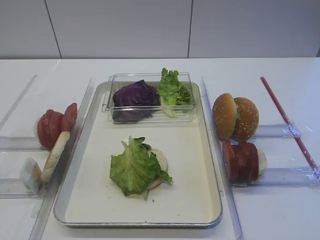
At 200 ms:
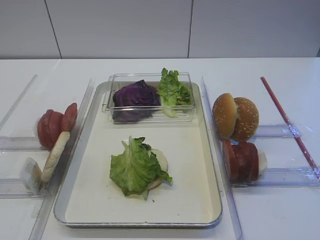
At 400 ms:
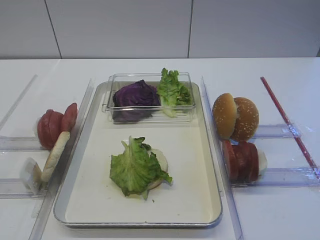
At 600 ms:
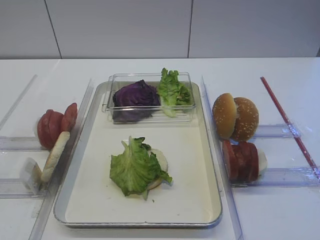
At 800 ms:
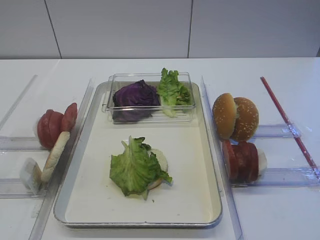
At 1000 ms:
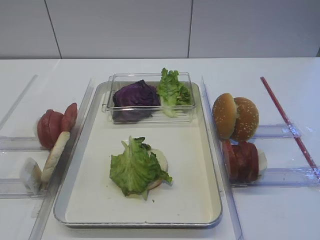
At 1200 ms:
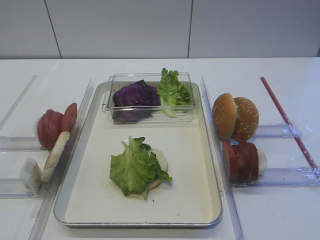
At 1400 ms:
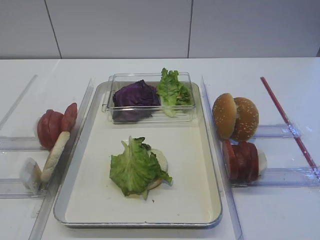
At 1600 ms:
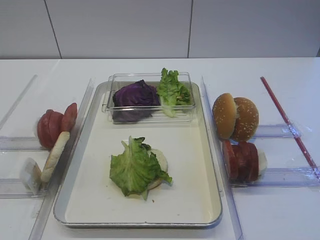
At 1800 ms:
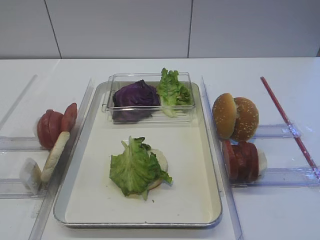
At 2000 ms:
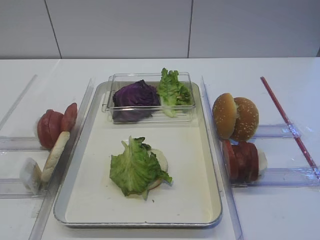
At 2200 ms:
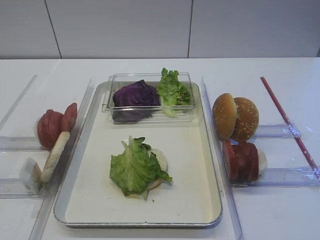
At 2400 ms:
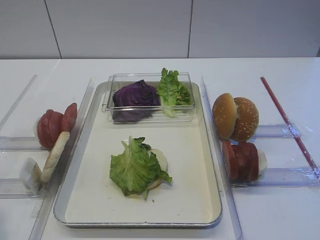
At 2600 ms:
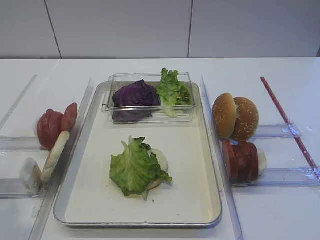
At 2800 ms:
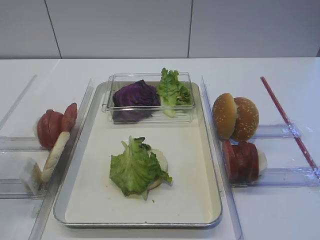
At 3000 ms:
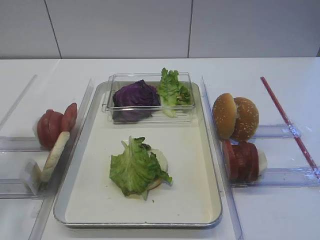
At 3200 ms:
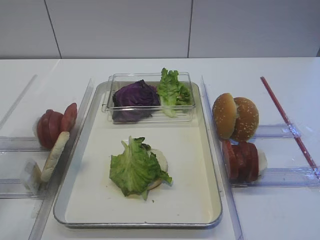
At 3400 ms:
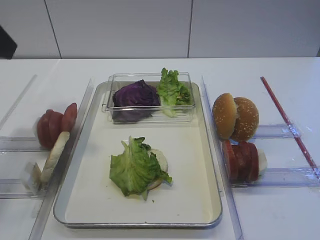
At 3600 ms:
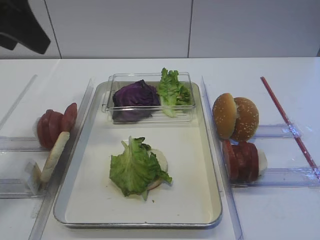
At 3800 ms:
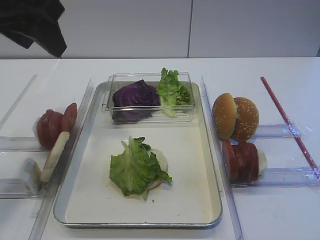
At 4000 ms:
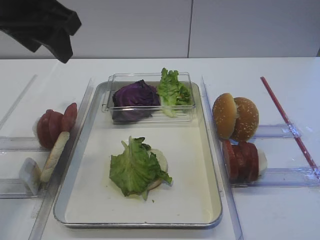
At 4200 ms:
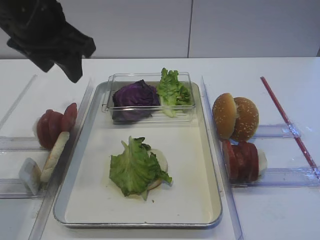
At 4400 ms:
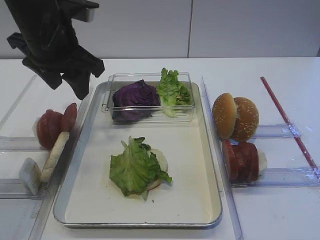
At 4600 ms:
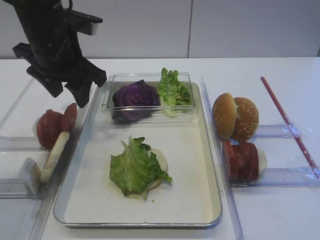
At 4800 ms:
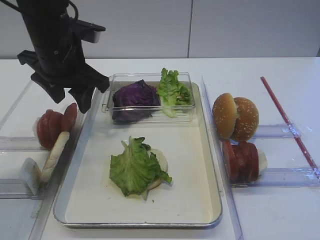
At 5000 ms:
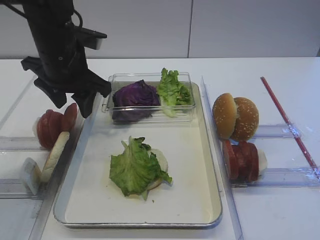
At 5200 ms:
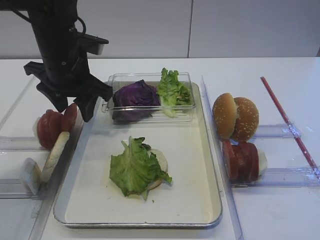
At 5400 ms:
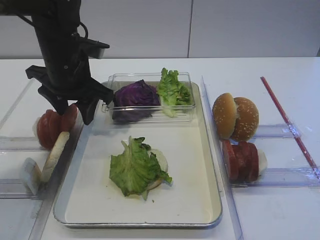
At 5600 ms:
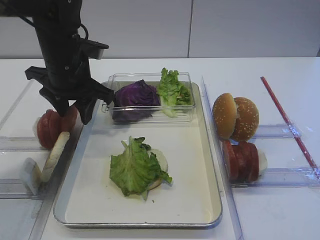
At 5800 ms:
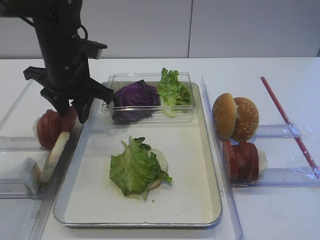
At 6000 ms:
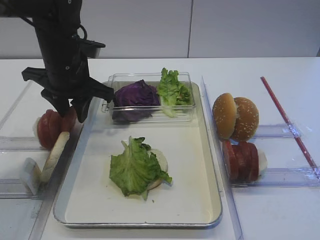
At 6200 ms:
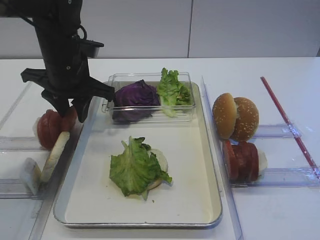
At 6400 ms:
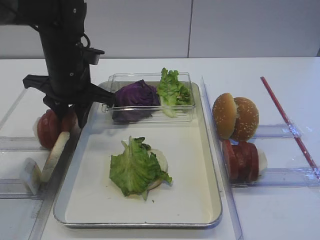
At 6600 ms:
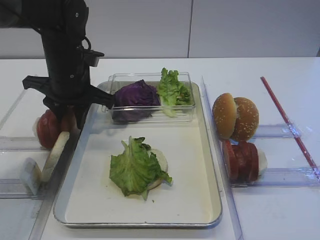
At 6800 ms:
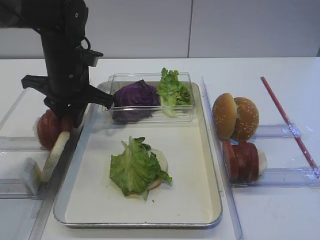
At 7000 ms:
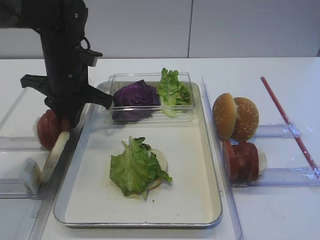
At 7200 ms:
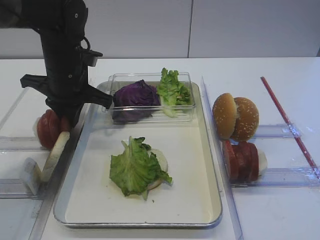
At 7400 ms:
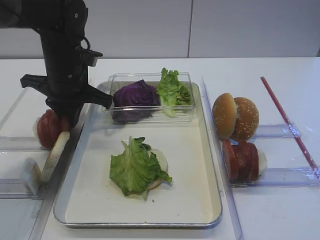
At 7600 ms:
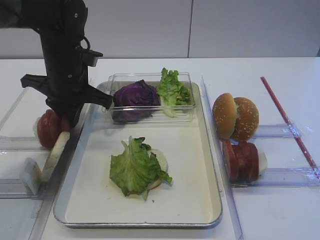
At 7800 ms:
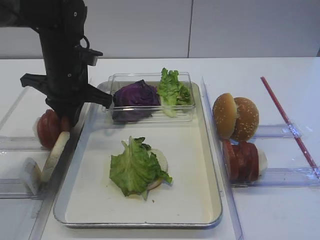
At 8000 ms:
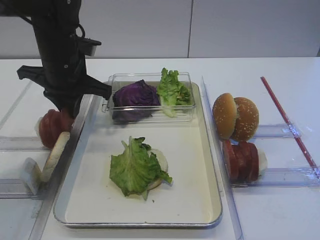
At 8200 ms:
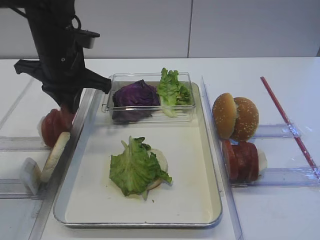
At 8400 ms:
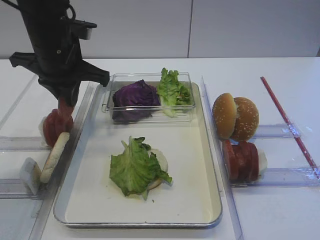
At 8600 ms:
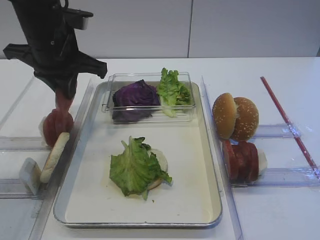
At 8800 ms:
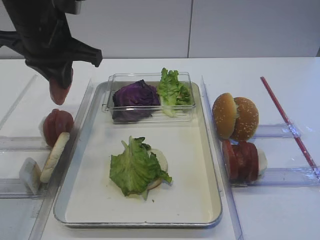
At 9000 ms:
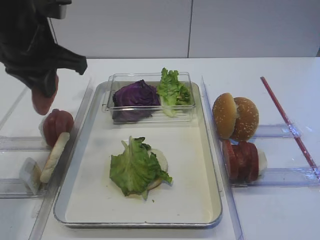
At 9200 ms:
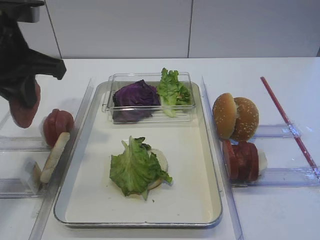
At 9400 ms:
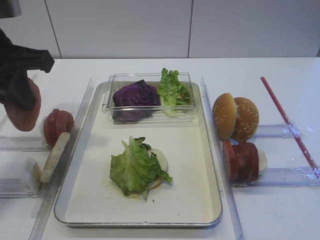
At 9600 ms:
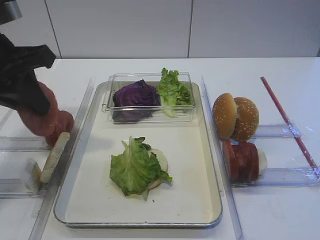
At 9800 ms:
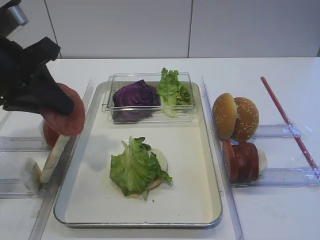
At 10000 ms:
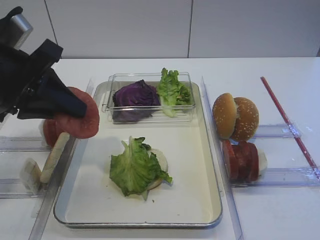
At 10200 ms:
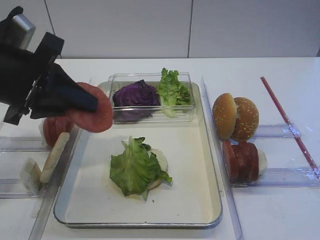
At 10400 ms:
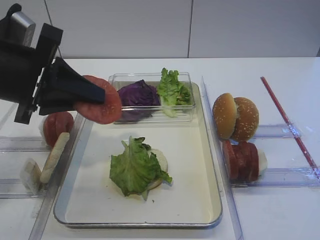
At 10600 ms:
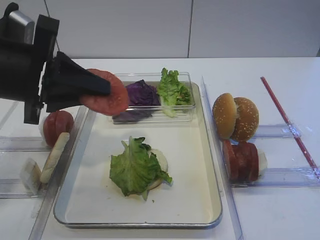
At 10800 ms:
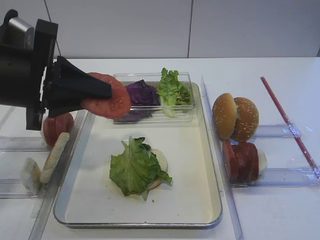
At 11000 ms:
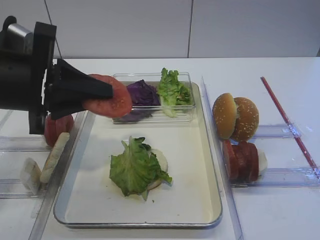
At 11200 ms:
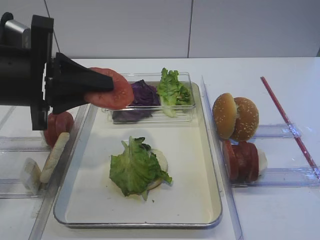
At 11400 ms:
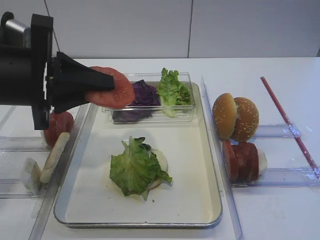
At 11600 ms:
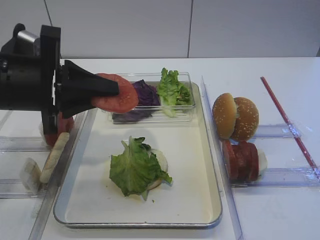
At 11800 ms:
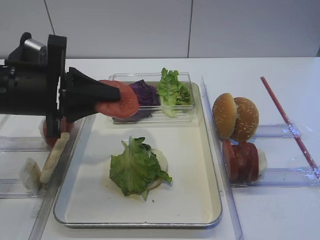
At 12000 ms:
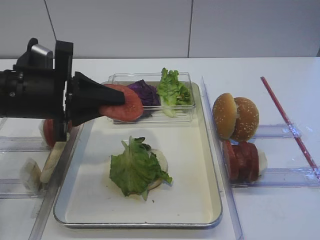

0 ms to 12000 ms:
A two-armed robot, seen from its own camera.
Step, 0 ms to 8400 ms: Pick up the tomato slice with the left gripper.
1600 ms to 3000 ms: The left gripper moves forward and upward, about 15 cm.
3000 ms to 4400 ms: The left gripper shifts some 25 cm forward and to the right.
4400 ms to 6000 ms: The left gripper shifts approximately 5 cm downward, and closes its fingers.
6000 ms to 7600 ms: The left gripper closes.
7600 ms to 9000 ms: The left gripper travels upward and backward by about 10 cm.
9000 ms to 10400 ms: The left gripper goes approximately 10 cm backward.
10400 ms to 12000 ms: The left gripper shifts by approximately 5 cm.

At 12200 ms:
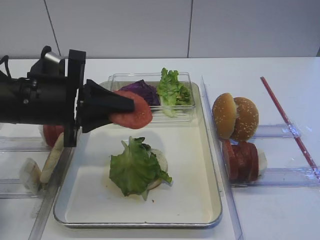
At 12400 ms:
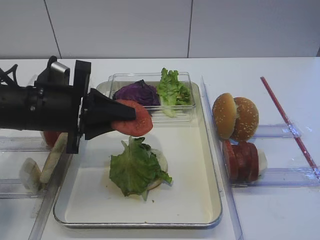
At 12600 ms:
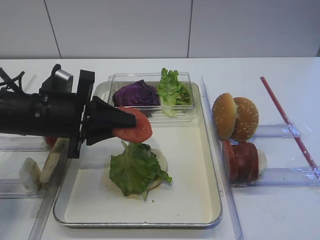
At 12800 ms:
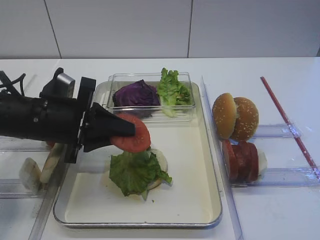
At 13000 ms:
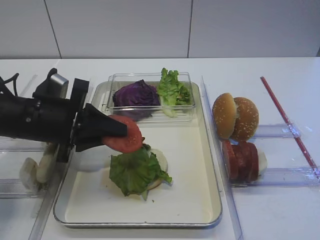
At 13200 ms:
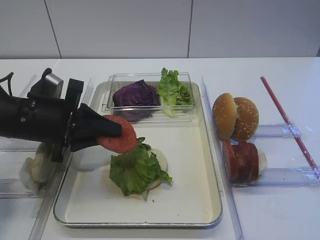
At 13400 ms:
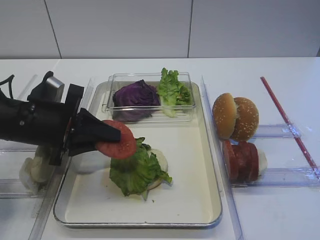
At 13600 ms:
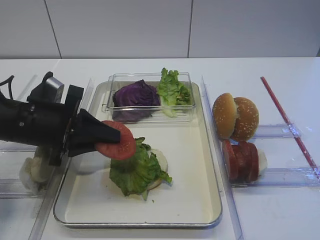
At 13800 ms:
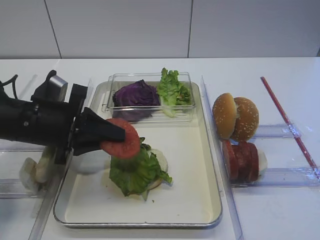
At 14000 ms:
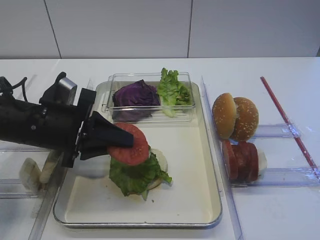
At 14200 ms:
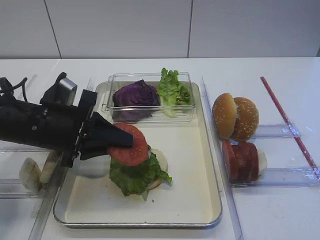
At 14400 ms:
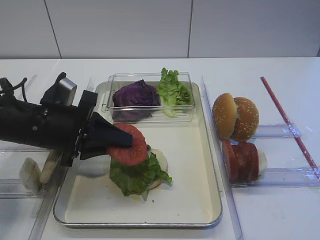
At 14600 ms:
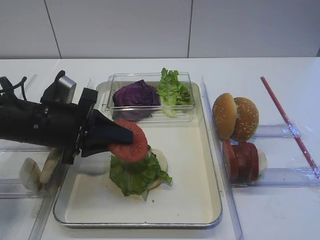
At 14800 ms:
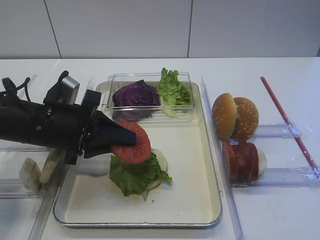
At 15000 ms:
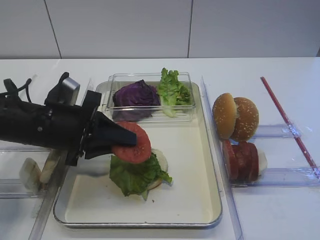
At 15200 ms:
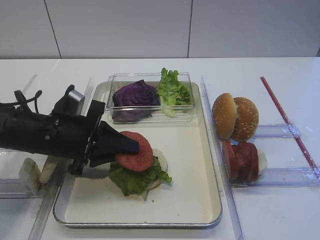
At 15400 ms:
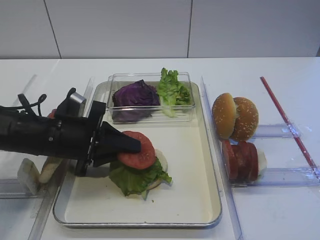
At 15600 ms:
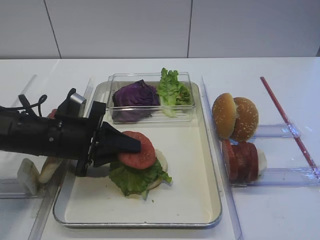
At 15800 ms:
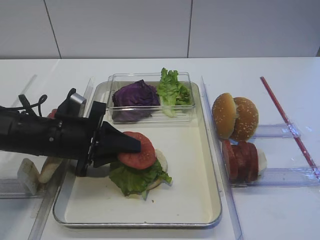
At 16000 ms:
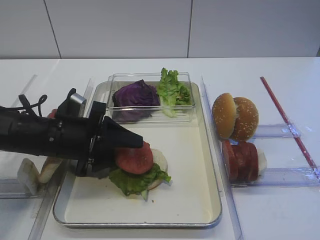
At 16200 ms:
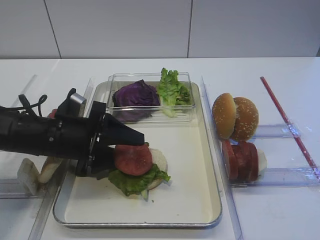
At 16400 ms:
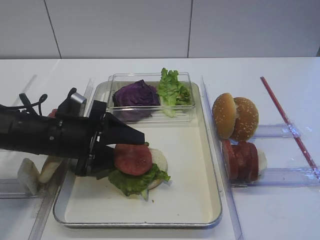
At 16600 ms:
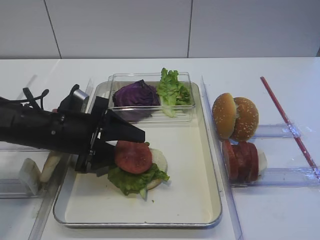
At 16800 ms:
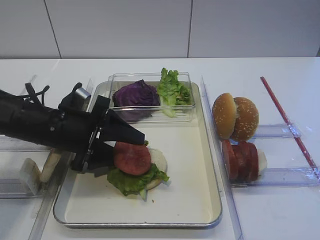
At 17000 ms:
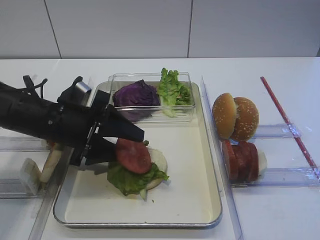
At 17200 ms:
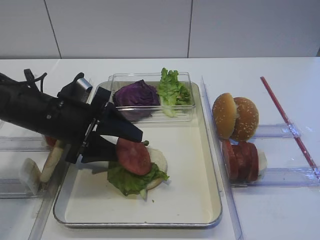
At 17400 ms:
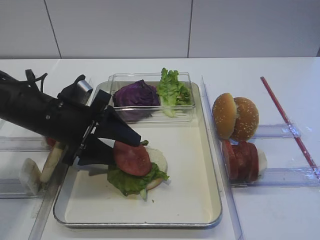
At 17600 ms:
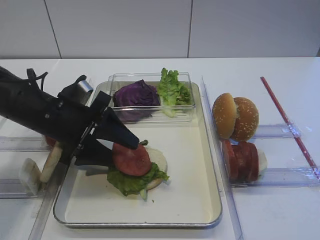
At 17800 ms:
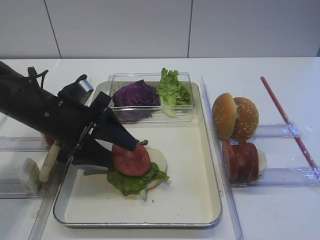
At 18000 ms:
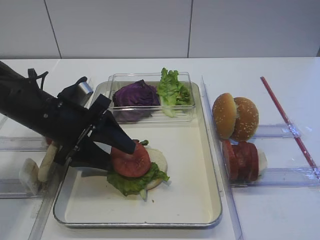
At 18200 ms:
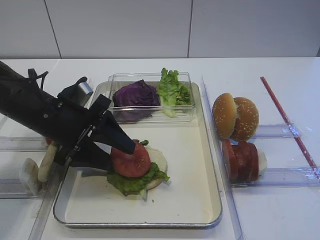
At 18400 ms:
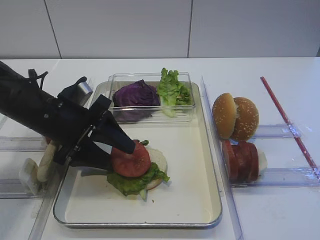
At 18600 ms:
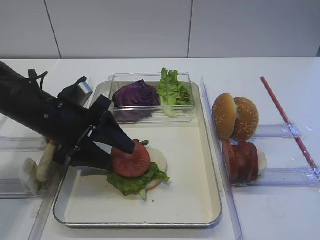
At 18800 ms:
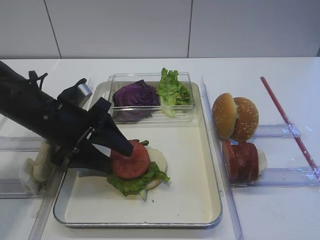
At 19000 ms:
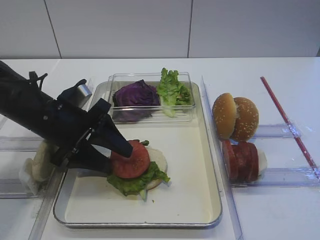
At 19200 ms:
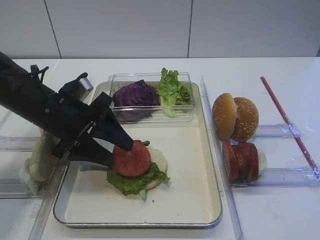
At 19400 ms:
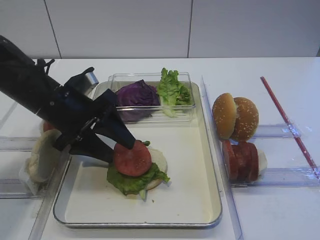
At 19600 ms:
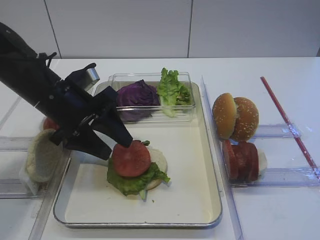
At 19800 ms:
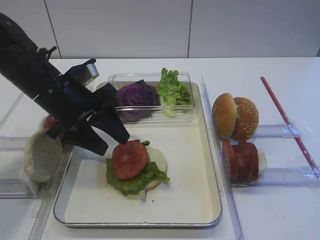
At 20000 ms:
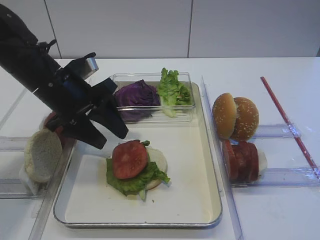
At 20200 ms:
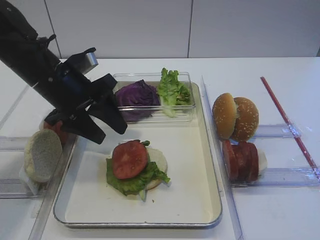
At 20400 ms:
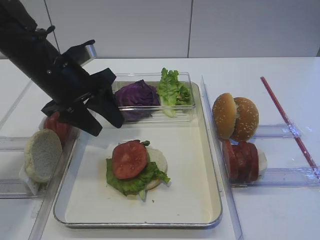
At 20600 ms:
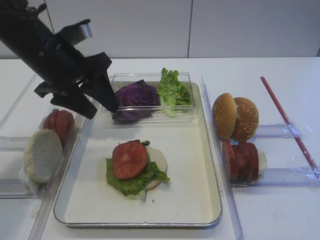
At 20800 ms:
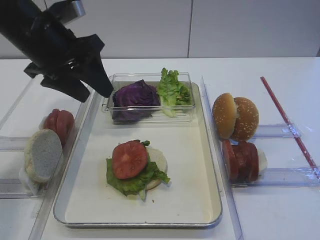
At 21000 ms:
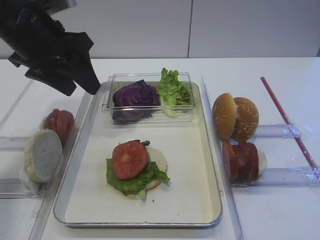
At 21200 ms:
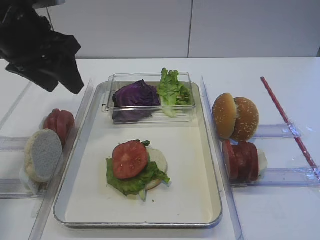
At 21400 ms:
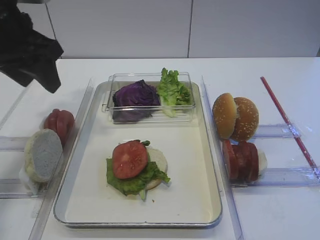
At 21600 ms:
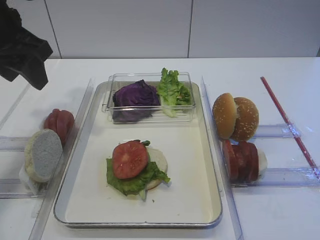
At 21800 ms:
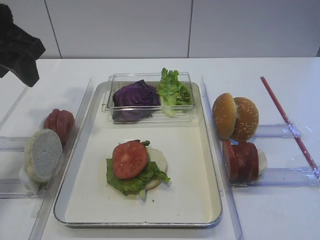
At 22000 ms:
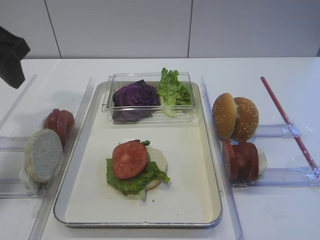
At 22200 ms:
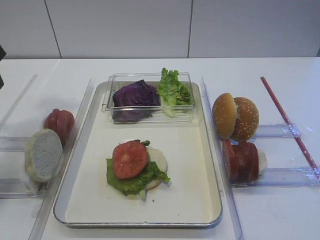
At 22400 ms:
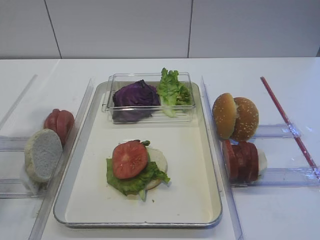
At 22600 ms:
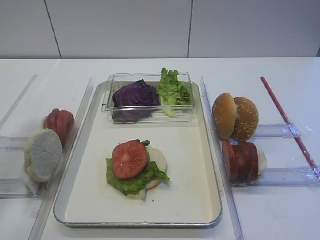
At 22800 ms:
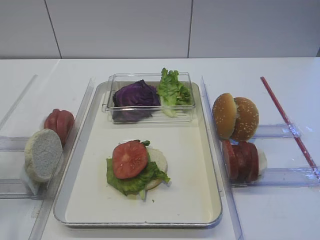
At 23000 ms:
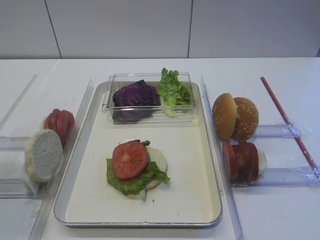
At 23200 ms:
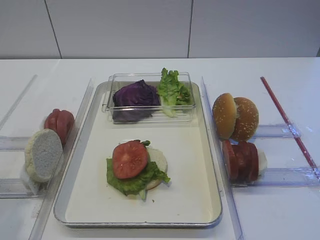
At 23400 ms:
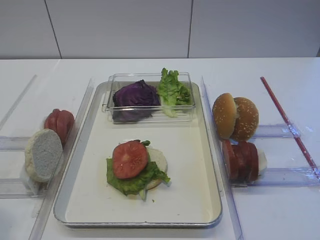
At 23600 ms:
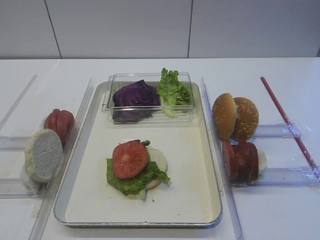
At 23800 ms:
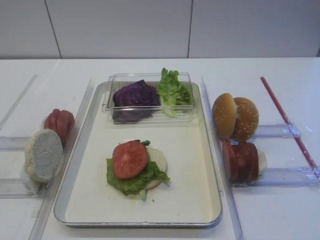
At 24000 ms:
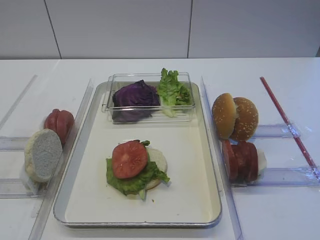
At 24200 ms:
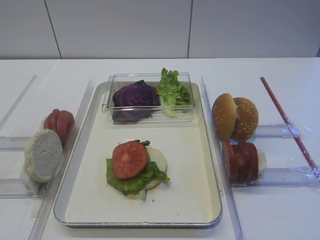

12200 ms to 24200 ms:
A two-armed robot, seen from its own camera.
Step, 12200 ms to 20000 ms: Place the tomato slice on the lettuce leaf with the left gripper.
12200 ms to 13800 ms: The grippers make only small movements.
13800 ms to 15200 ms: The grippers move only a little.
15200 ms to 16600 ms: The left gripper opens.
16600 ms to 18200 ms: There are only small adjustments of the grippers.
18200 ms to 19800 ms: The grippers make only small movements.
19800 ms to 21200 ms: The left gripper heads upward, covering some 10 cm.
21200 ms to 22600 ms: The left gripper goes about 15 cm backward and to the left.
